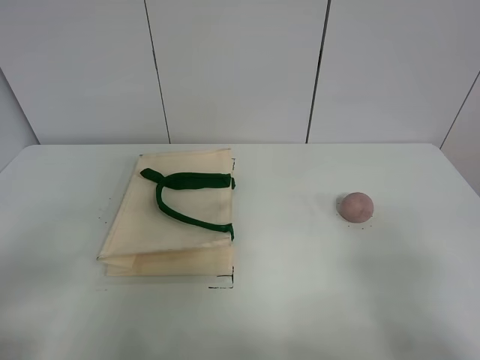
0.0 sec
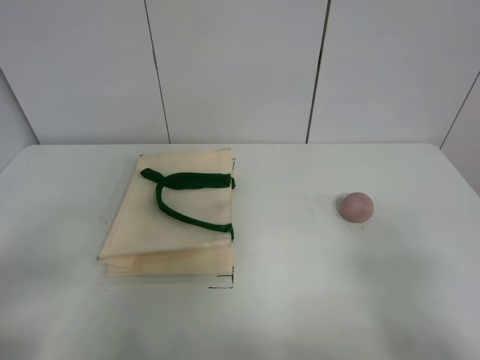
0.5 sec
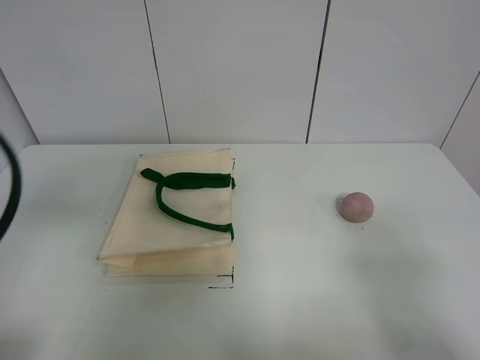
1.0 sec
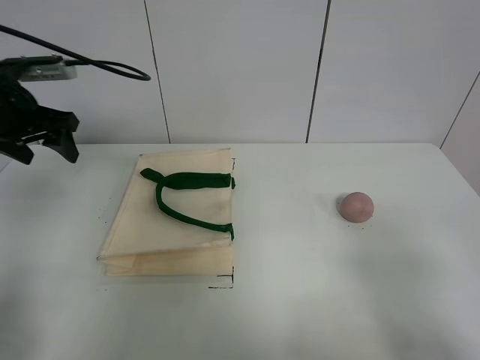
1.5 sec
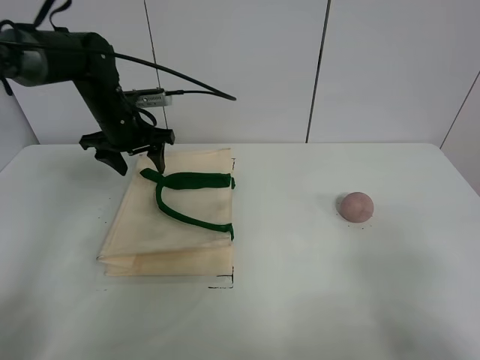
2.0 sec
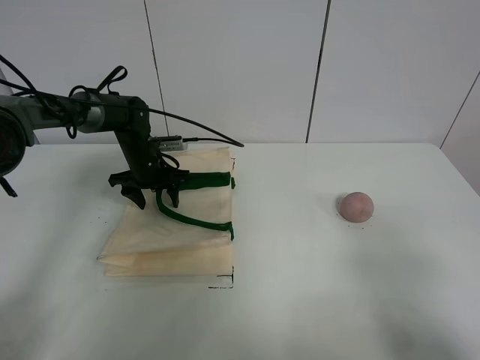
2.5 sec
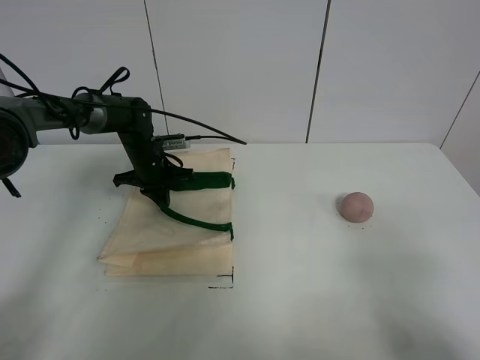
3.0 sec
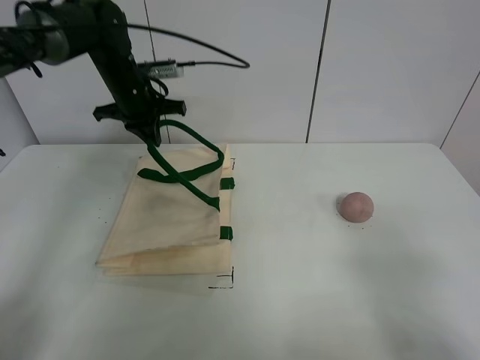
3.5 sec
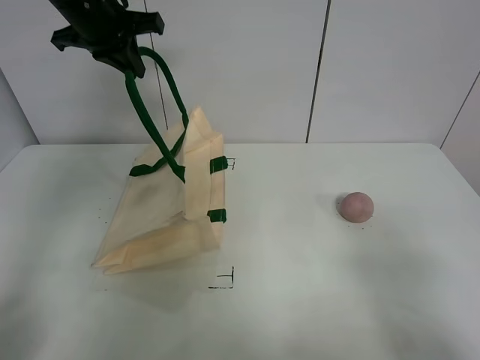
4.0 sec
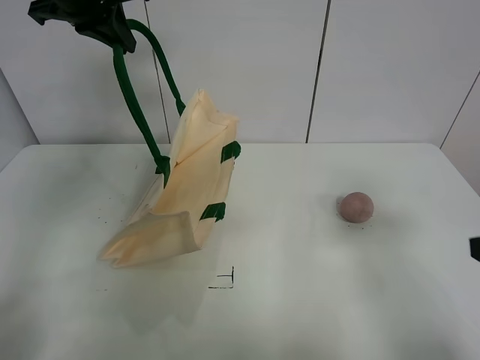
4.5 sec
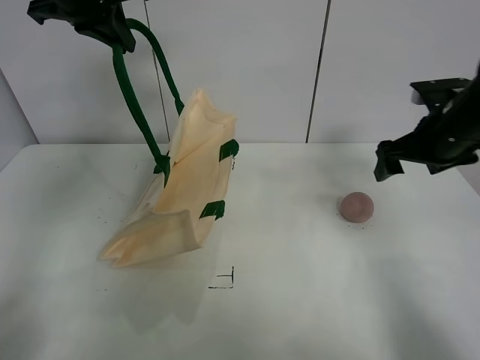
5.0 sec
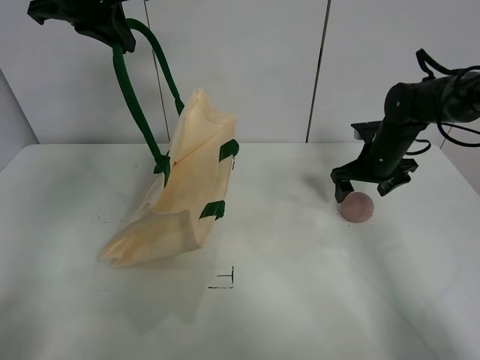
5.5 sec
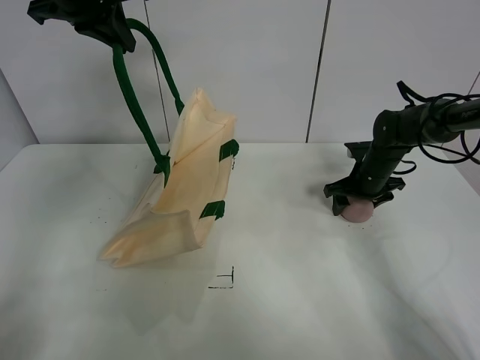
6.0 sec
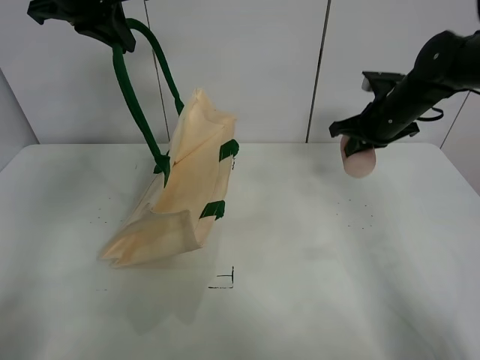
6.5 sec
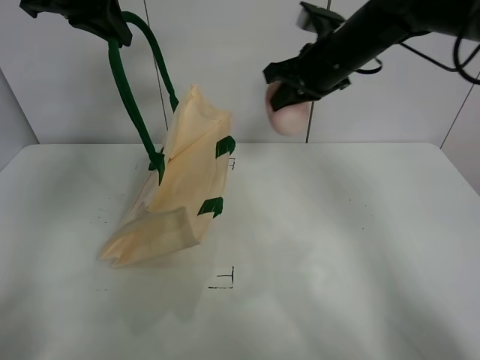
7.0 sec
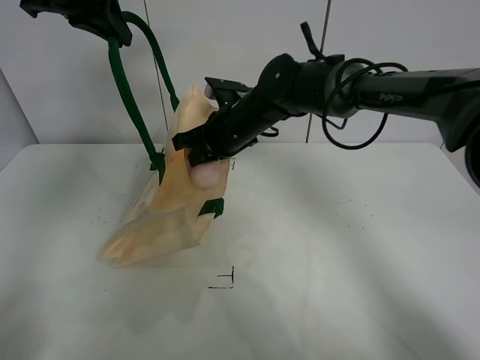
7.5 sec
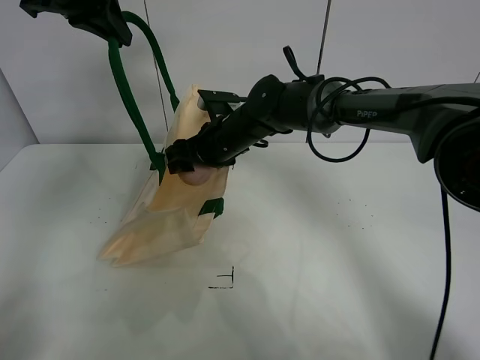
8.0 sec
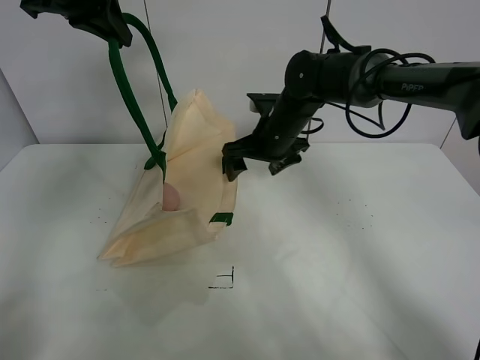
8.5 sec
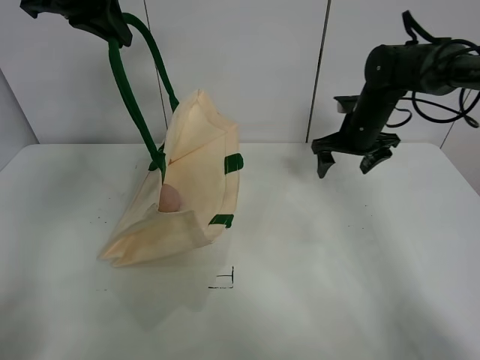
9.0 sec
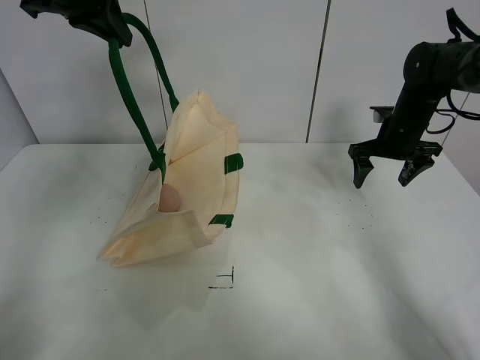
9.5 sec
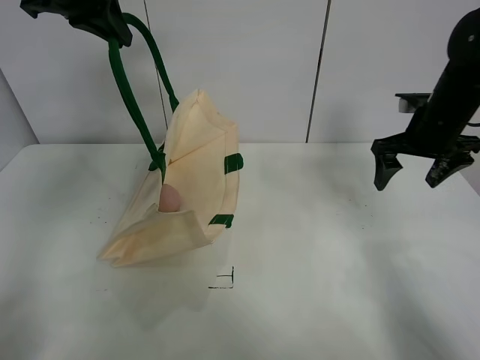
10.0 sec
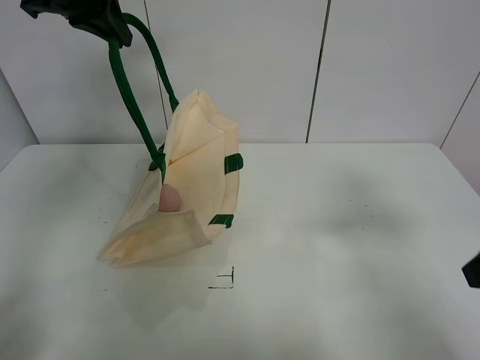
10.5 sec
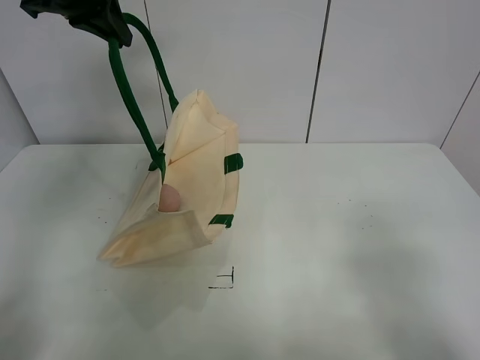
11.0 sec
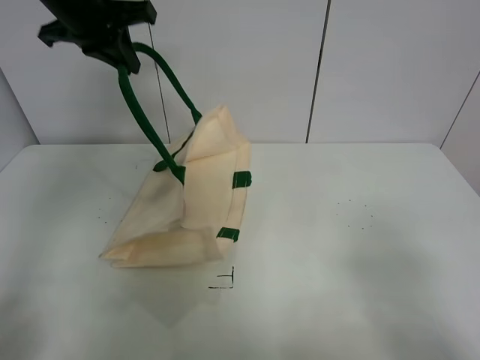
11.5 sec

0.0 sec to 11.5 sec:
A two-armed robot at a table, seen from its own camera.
Task of the whole recording: open the white linen bag and put the peach in the bag.
Step, 0.0 sec to 4.0 sec: Lift the handbag with left gripper.
Step, 4.5 sec to 6.0 sec: Grasp the peach with right gripper.
Step, 6.5 sec to 8.0 sec: Place the peach in the handbag with right gripper.
0.0 sec to 2.0 sec: The left gripper goes about 40 cm forward.
2.0 sec to 4.0 sec: The left gripper travels upward by approximately 15 cm, and closes its fingers.
4.0 sec to 6.0 sec: The right gripper goes about 50 cm forward and downward, and closes its fingers.
6.0 sec to 7.5 sec: The right gripper goes roughly 30 cm to the left and upward, and closes up.
7.5 sec to 9.5 sec: The right gripper goes some 30 cm to the right, and opens.
9.5 sec to 11.5 sec: The right gripper is displaced backward by approximately 40 cm.

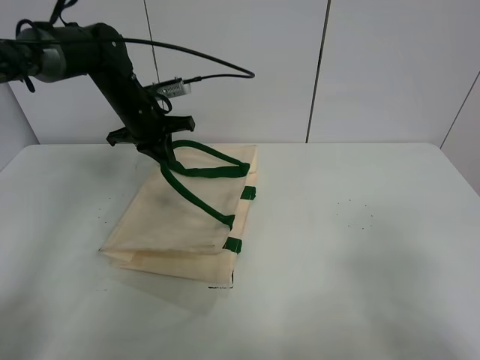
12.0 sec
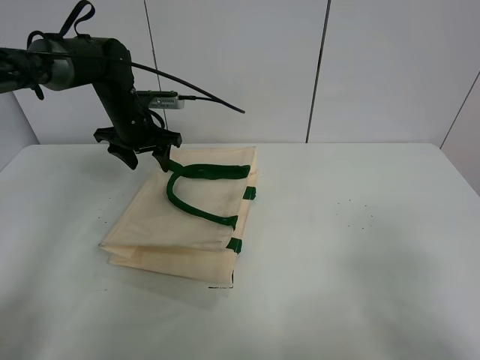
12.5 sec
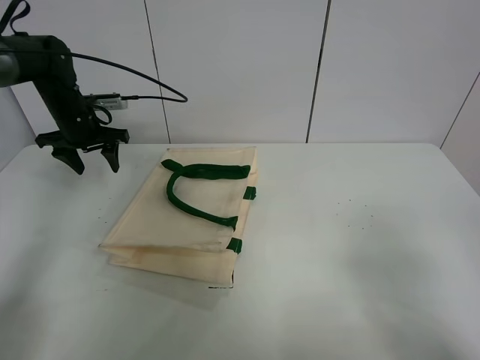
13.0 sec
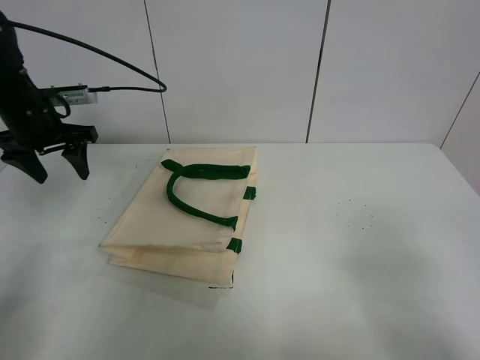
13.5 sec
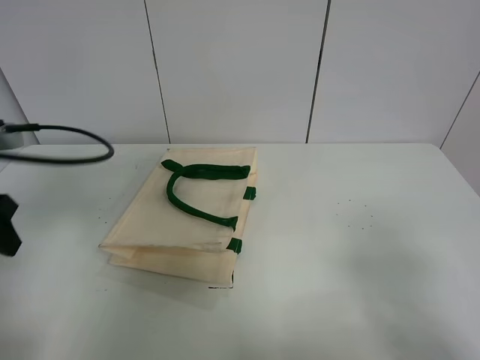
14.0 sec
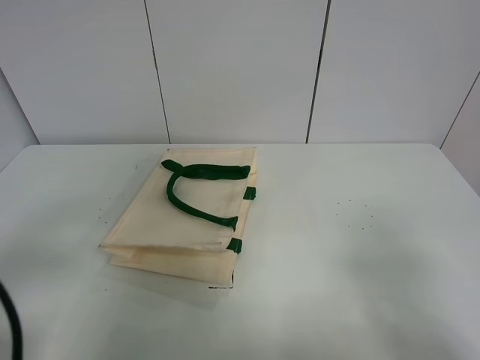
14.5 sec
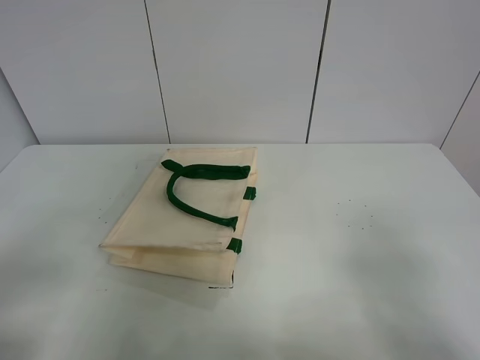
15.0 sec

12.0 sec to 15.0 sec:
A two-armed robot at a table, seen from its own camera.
Task of the whole recording: open the white linen bag and put the peach in the bag.
12.0 sec to 13.5 sec: The left gripper heads to the left and backward, covering approximately 15 cm, and opens.
13.5 sec to 15.0 sec: The left gripper is displaced backward by roughly 40 cm.

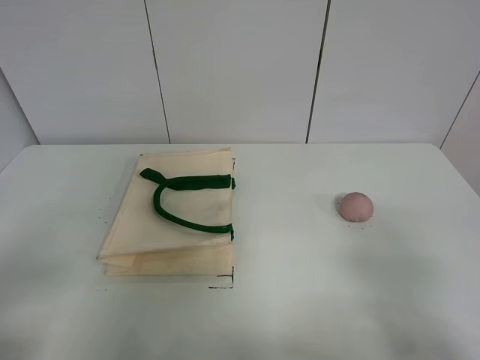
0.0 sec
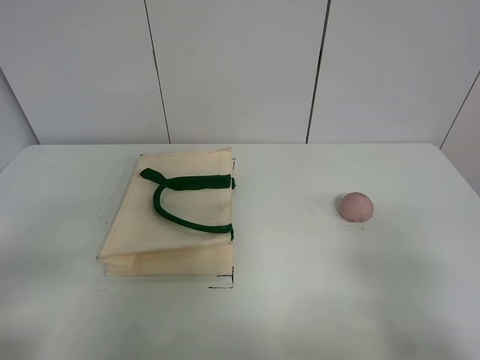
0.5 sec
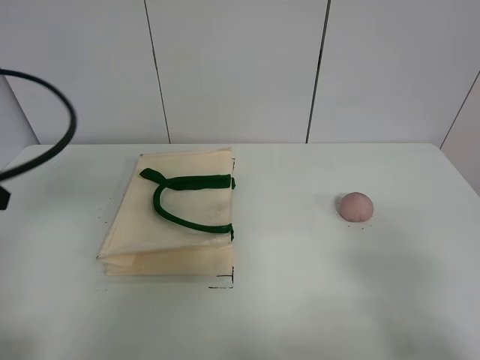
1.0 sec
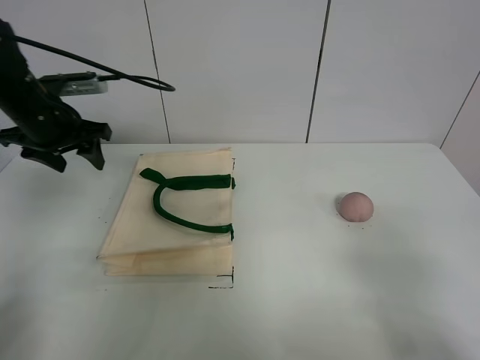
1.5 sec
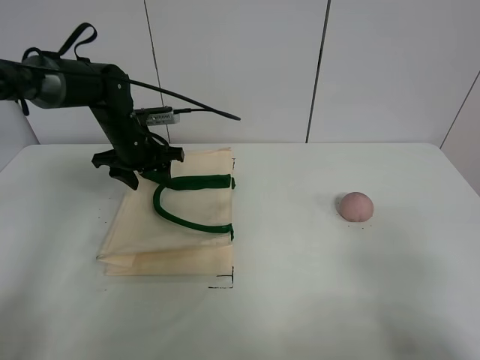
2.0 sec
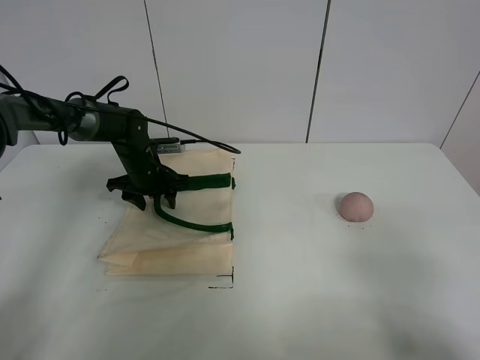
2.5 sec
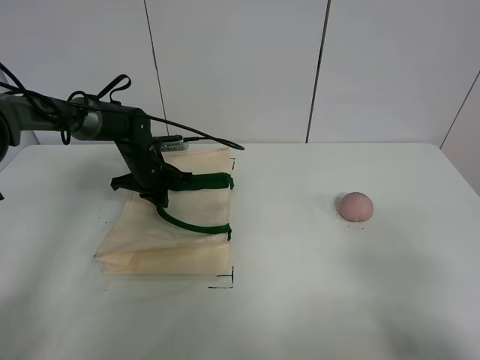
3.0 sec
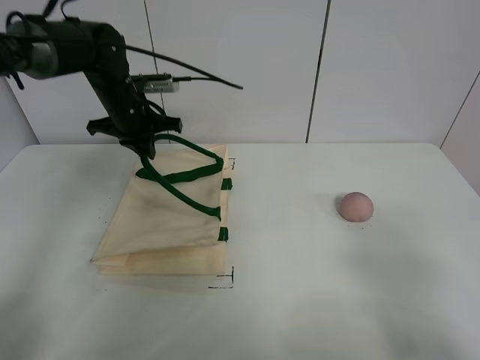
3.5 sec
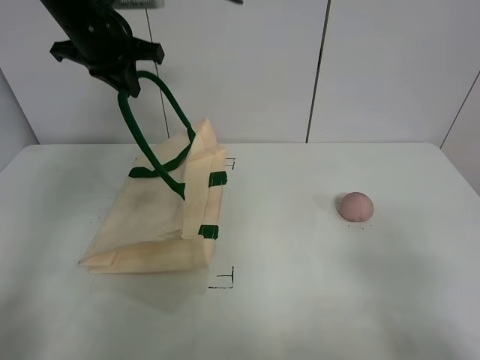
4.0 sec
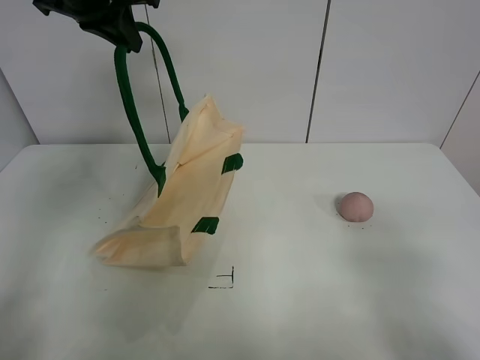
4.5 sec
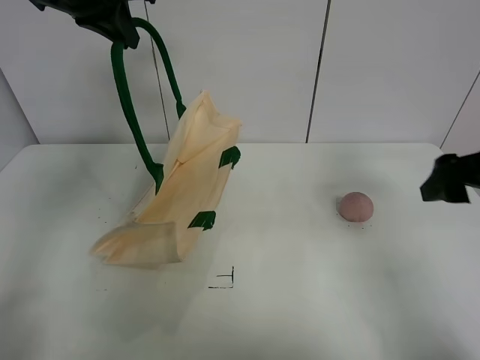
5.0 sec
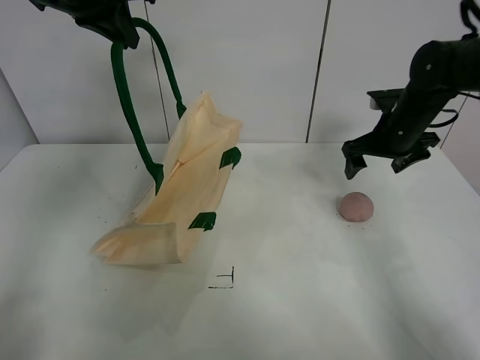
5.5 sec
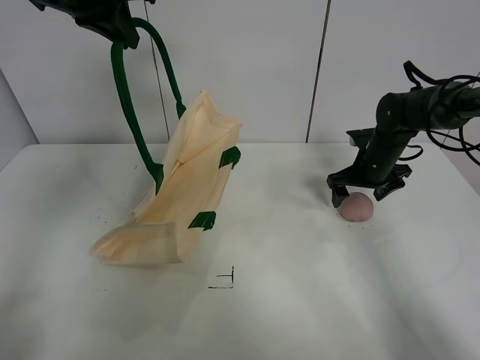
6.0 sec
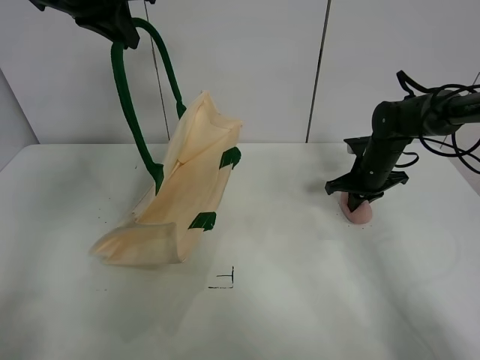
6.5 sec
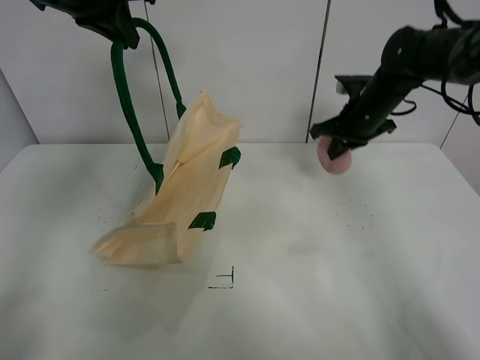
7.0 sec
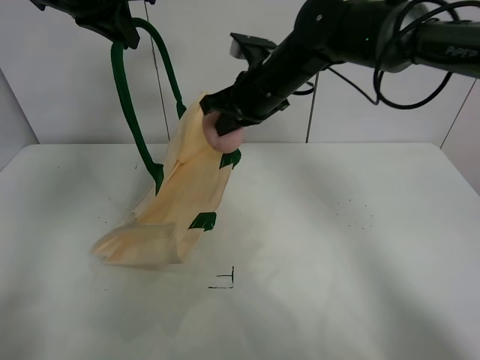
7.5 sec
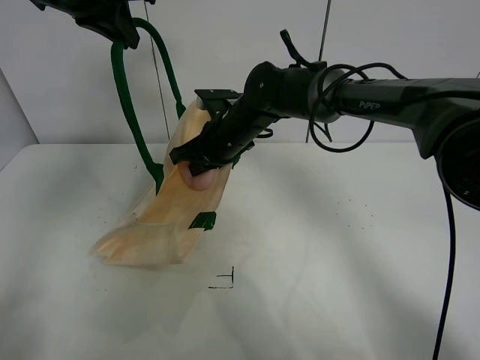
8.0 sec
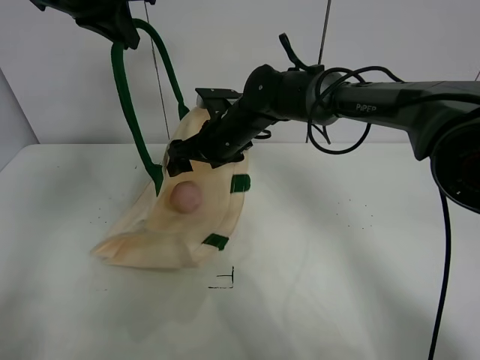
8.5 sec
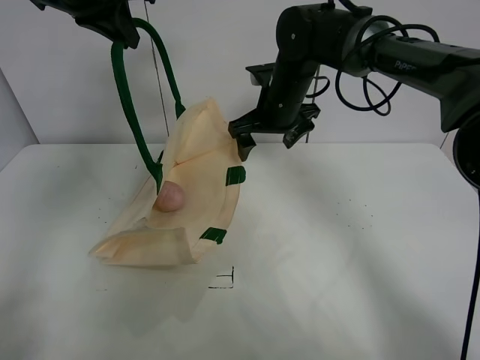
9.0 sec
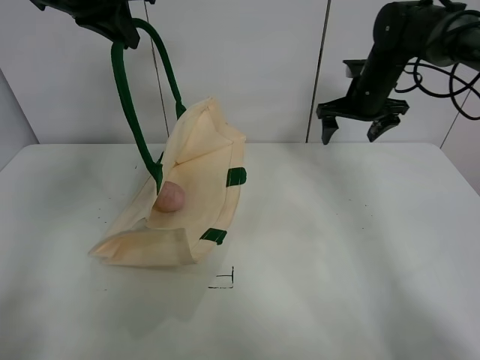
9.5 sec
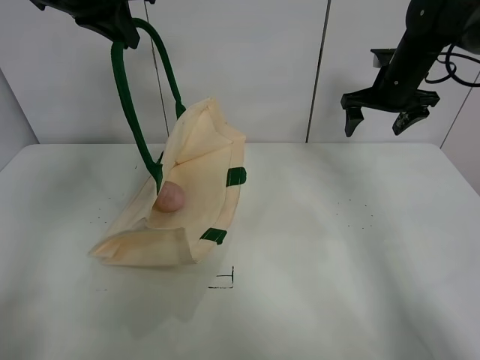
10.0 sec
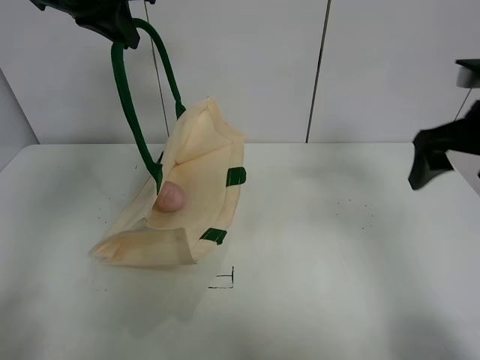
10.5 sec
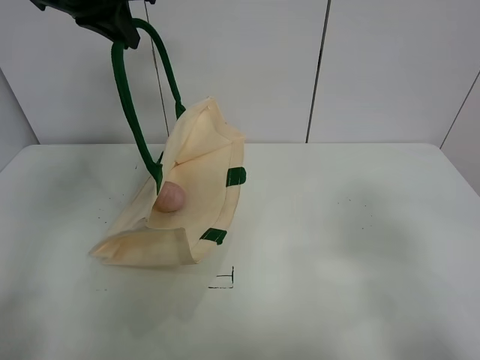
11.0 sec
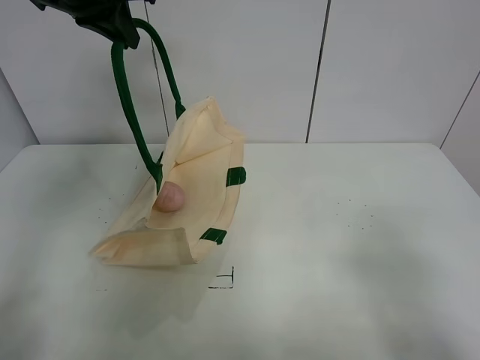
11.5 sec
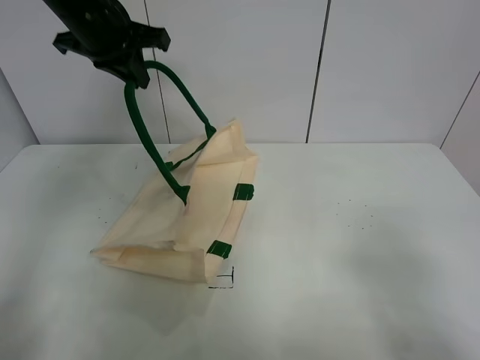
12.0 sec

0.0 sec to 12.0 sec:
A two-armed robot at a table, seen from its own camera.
Task of the whole recording: open the white linen bag and put the peach in the bag.
Step, 0.0 sec to 4.0 sec: Lift the handbag with left gripper.
Step, 4.5 sec to 6.5 sec: Grasp the peach with right gripper.
Step, 7.0 sec to 8.5 sec: Place the peach in the handbag with right gripper.
0.0 sec to 2.0 sec: The left gripper heads forward, covering roughly 40 cm.
2.0 sec to 4.0 sec: The left gripper shifts roughly 20 cm upward, and closes its fingers.
4.0 sec to 6.0 sec: The right gripper goes approximately 40 cm forward. The left gripper travels upward by approximately 5 cm.
6.0 sec to 8.0 sec: The right gripper travels to the left by some 25 cm, and closes up.
8.0 sec to 10.0 sec: The right gripper is displaced to the right by approximately 25 cm, and opens up.
10.0 sec to 12.0 sec: The right gripper shifts roughly 50 cm backward. The left gripper heads downward, covering about 5 cm.
